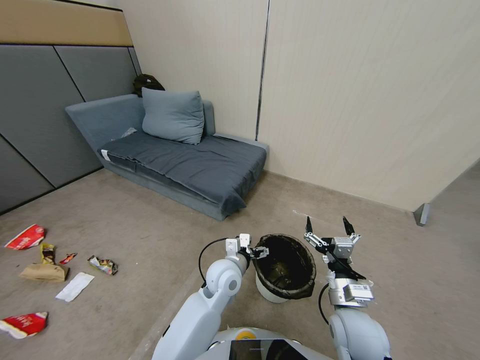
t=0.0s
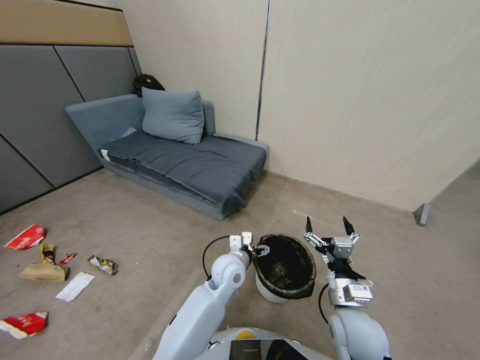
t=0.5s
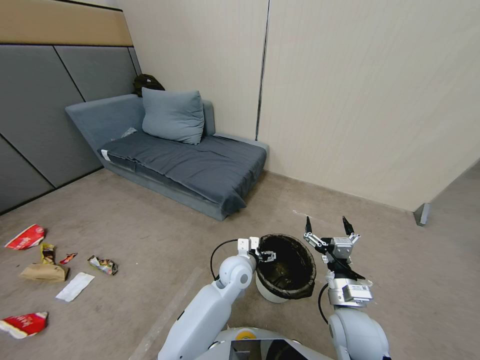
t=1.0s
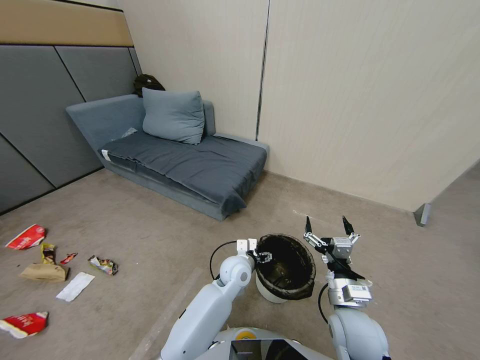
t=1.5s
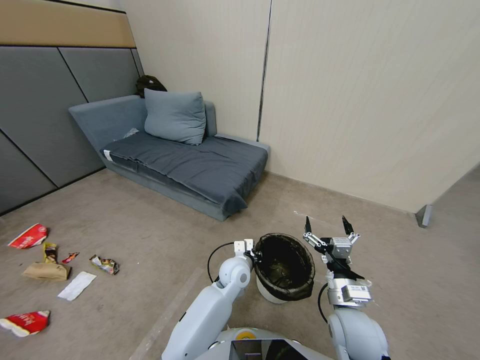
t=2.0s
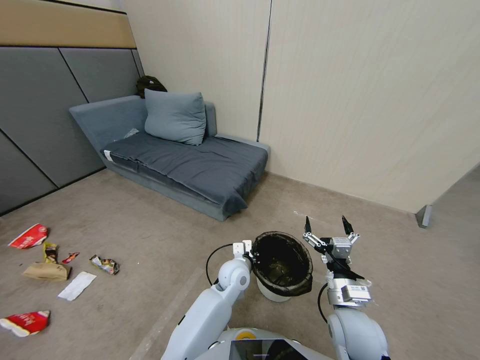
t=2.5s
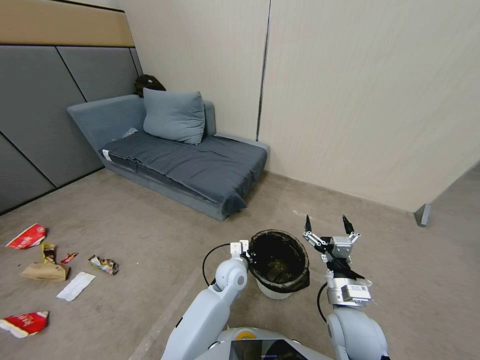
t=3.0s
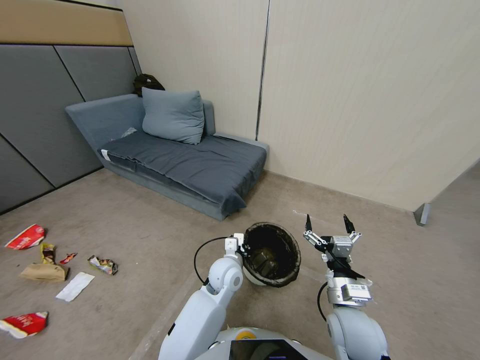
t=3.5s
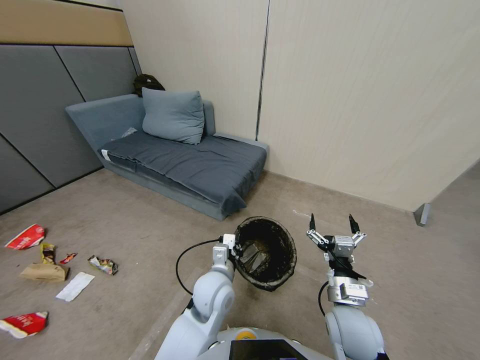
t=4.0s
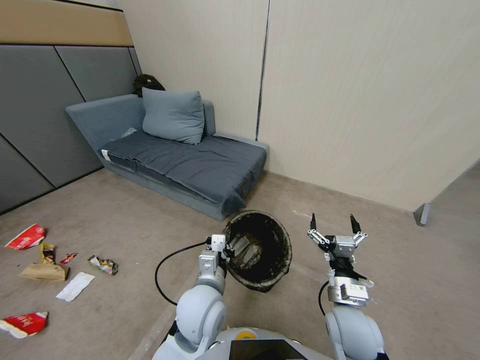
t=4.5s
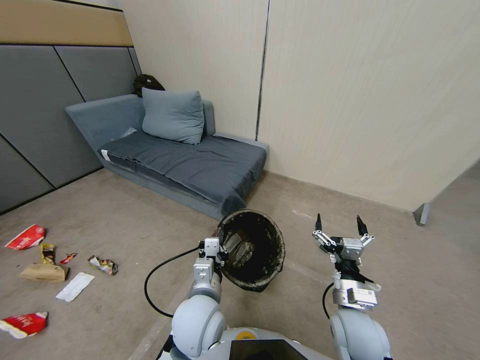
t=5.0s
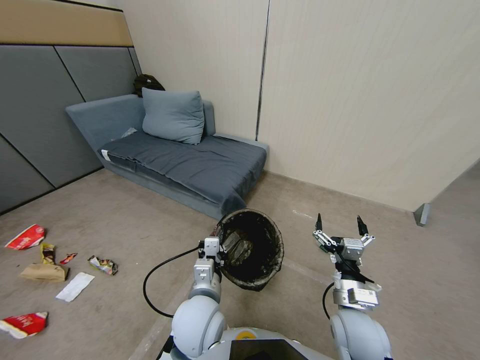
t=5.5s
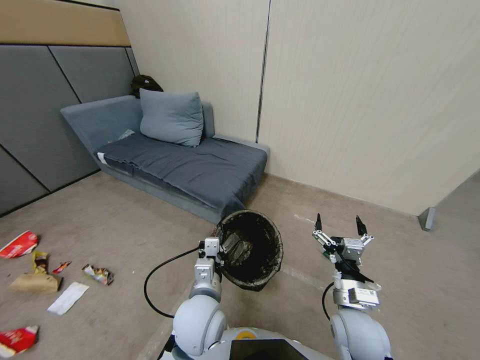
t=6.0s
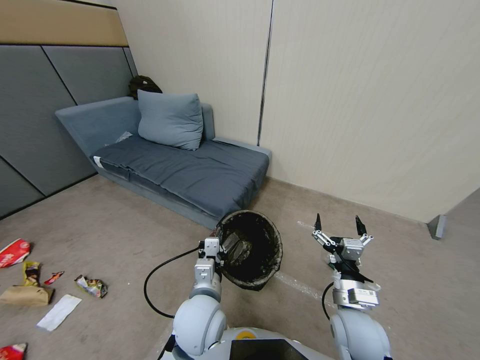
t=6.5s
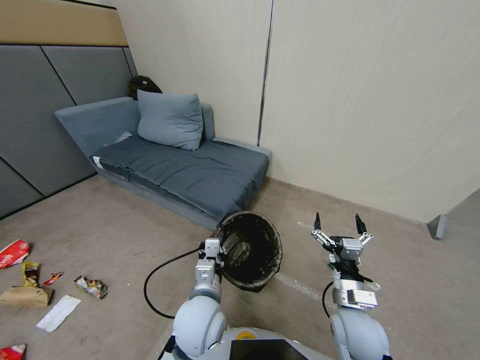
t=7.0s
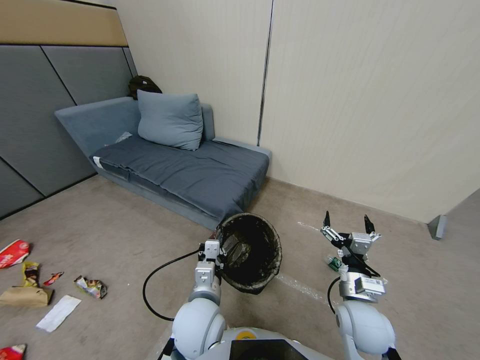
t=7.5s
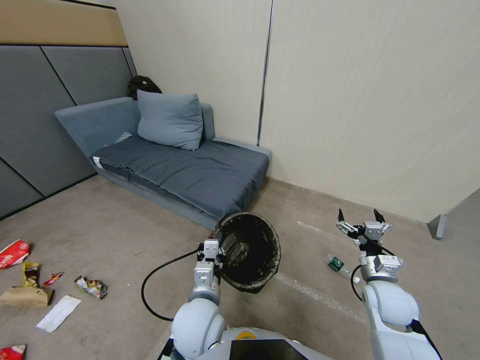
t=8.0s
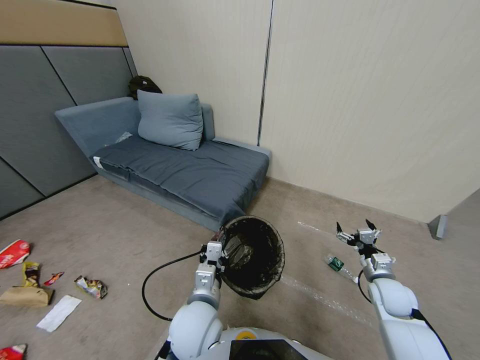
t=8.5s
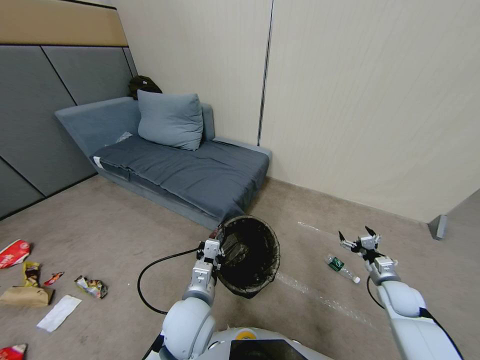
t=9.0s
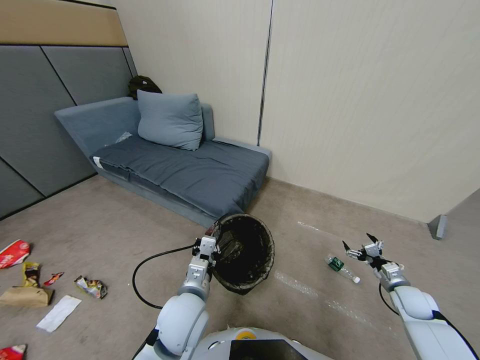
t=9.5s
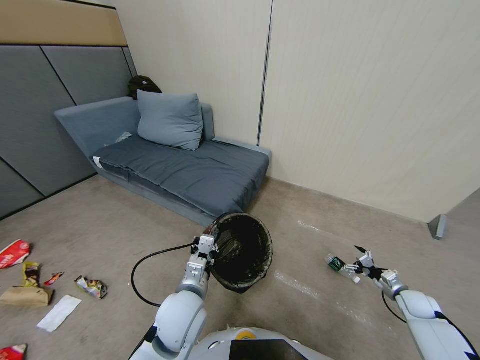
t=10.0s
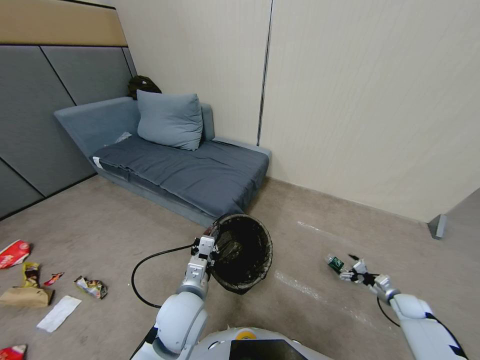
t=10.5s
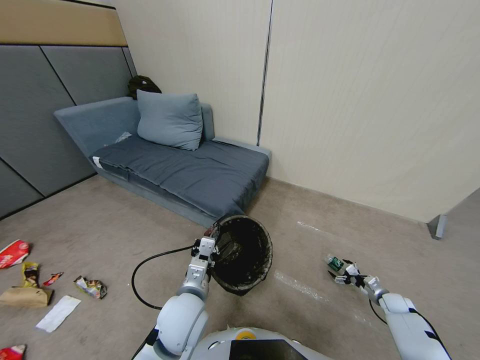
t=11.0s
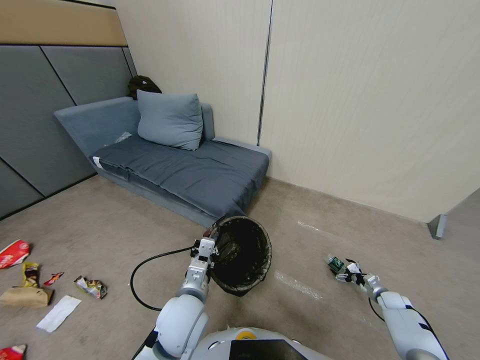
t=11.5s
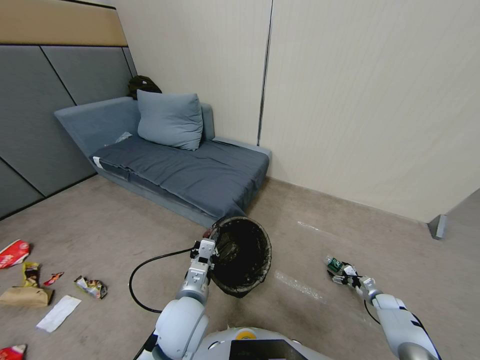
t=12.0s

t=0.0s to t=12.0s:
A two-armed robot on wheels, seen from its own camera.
Task of the whole recording: Pick up the trash bin, then pick up the garbage from the floor and place it into the trash bin.
t=0.0s to t=2.0s: The left gripper is displaced downward by about 5 cm, and closes.
t=2.0s to t=4.0s: The left gripper goes roughly 10 cm upward, backward and to the left.
t=4.0s to t=6.0s: The left gripper shifts about 5 cm backward.
t=6.0s to t=8.0s: The right gripper travels to the right and forward by about 15 cm.
t=8.0s to t=10.0s: The right gripper heads to the right and downward, covering about 25 cm.
t=10.0s to t=12.0s: The right gripper shifts about 10 cm downward.

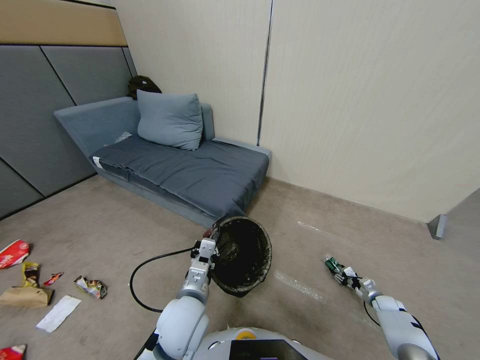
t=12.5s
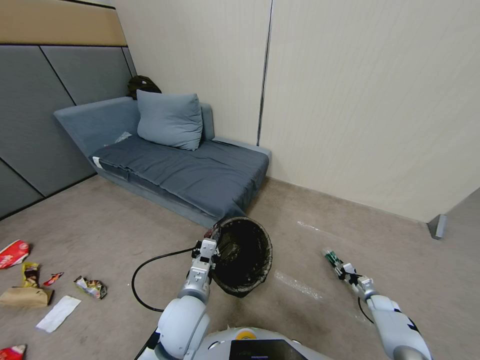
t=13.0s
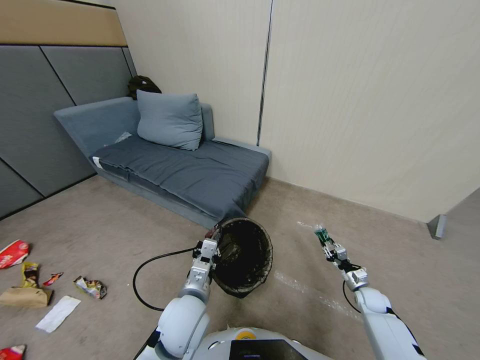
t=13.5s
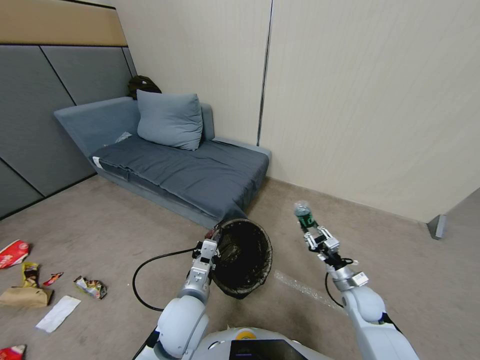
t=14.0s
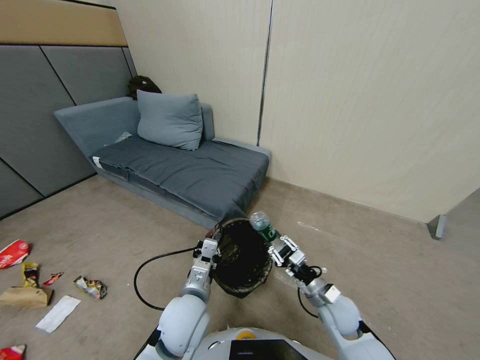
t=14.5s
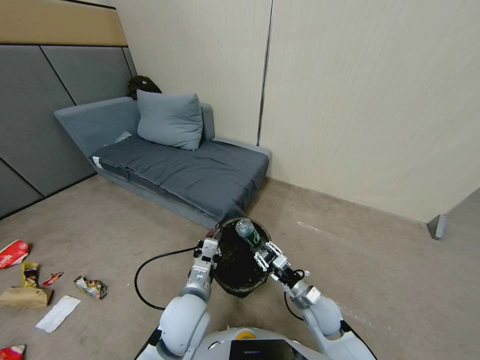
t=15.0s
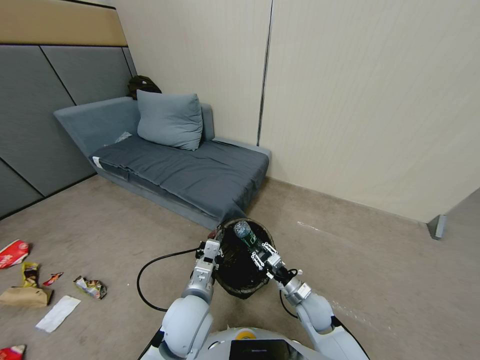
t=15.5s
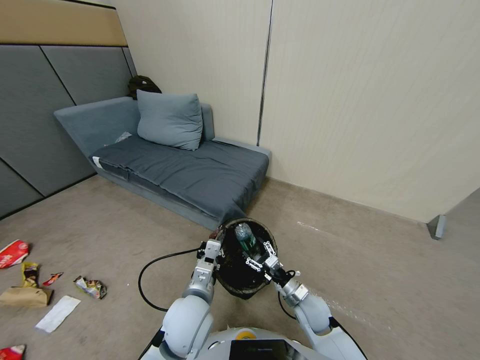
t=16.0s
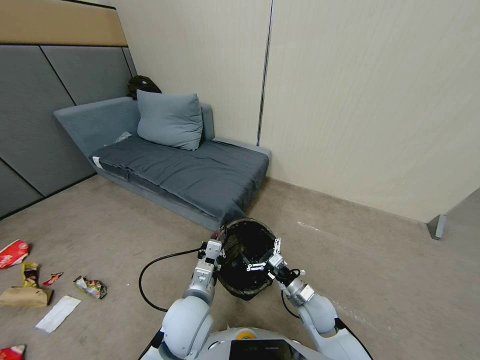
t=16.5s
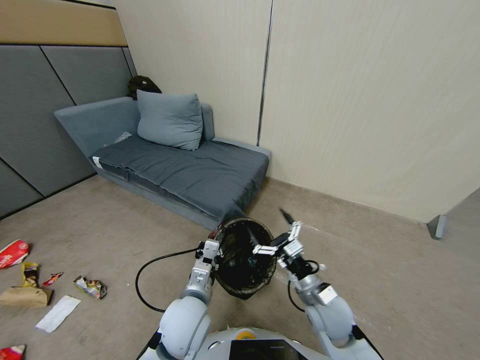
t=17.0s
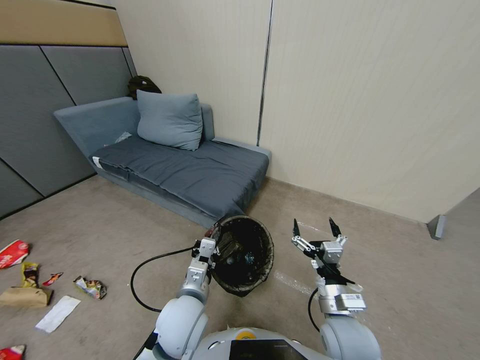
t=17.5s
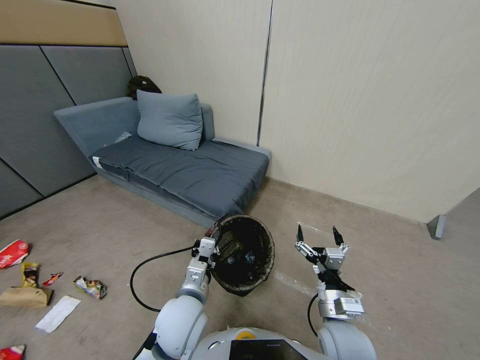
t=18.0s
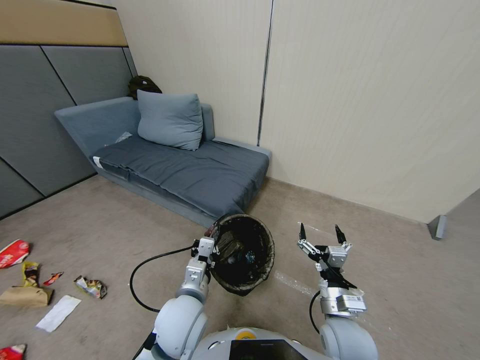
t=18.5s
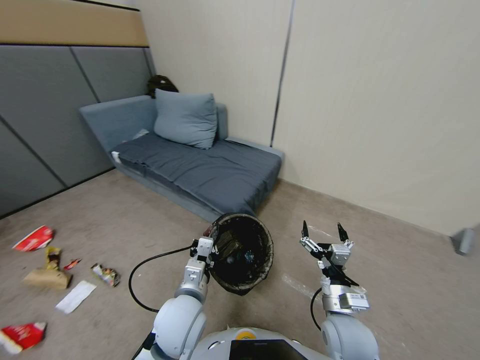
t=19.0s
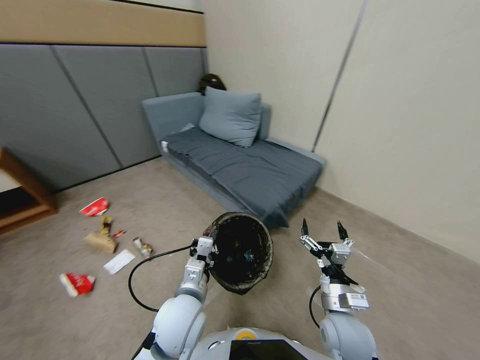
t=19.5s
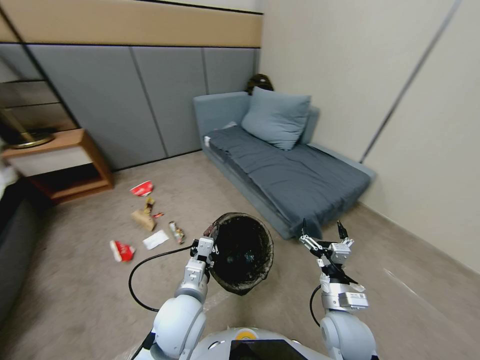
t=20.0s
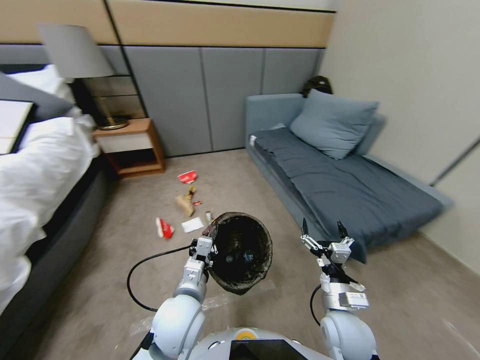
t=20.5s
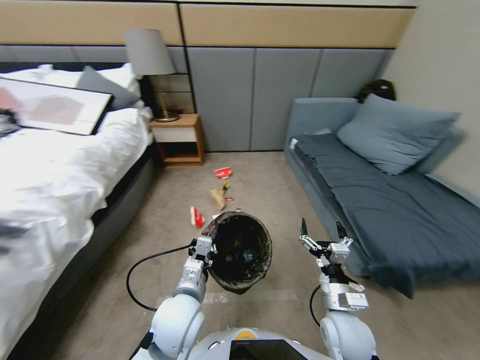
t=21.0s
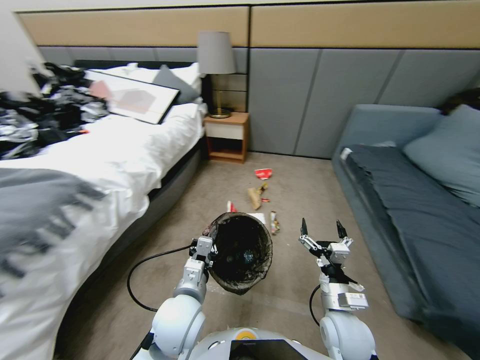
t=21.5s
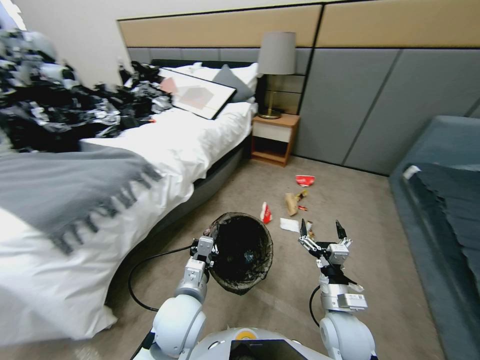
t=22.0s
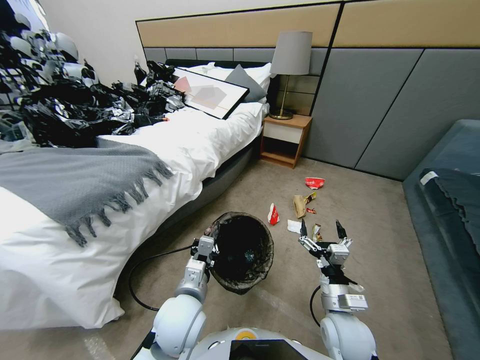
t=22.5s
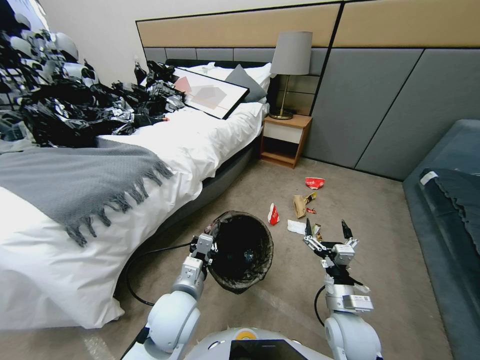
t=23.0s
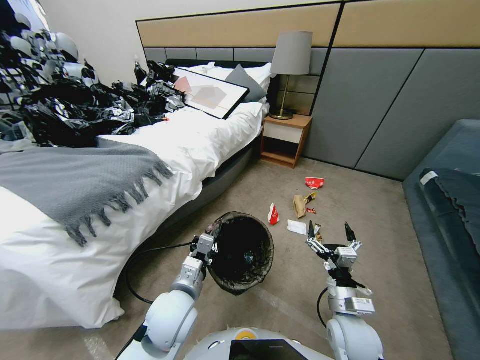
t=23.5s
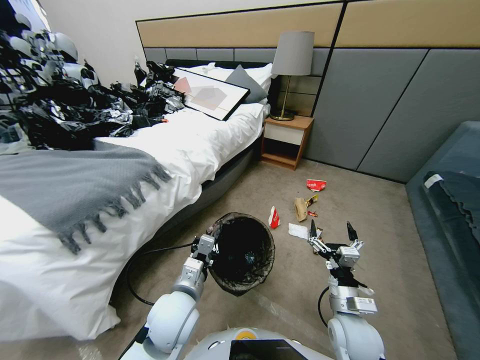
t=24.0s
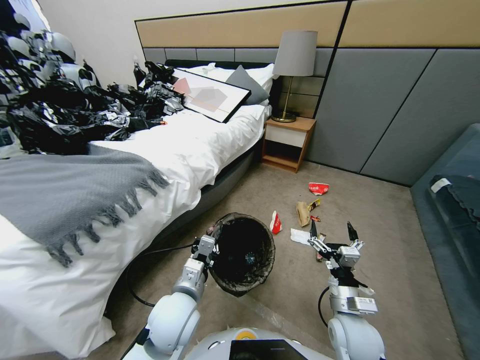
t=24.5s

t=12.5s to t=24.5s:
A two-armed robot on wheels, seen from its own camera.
Task of the whole recording: Pick up the trash bin, then pick up the garbage from the floor and place it into the trash bin.
t=12.5s to t=14.5s: The right gripper travels to the left and upward by about 40 cm.
t=14.5s to t=16.5s: The right gripper opens up.
t=16.5s to t=18.5s: The right gripper moves upward and backward, roughly 10 cm.

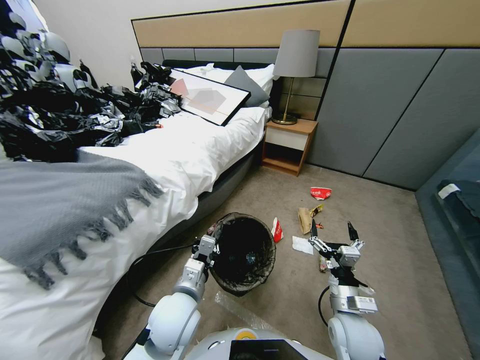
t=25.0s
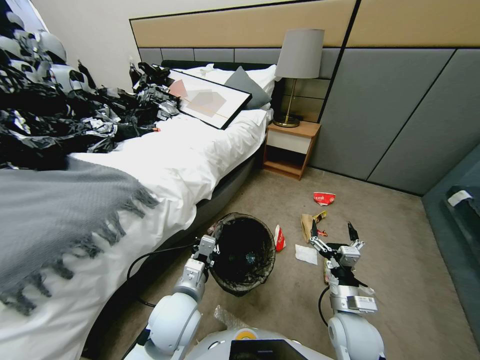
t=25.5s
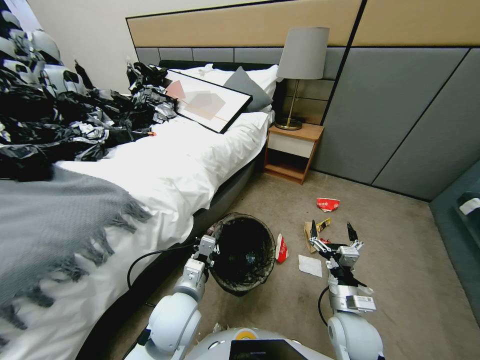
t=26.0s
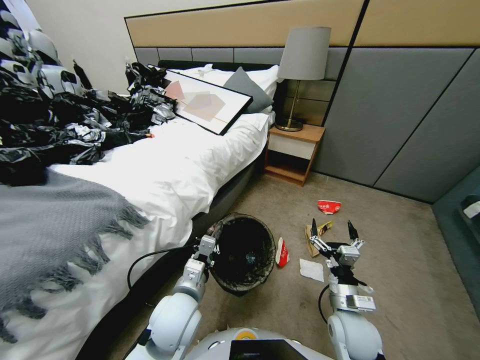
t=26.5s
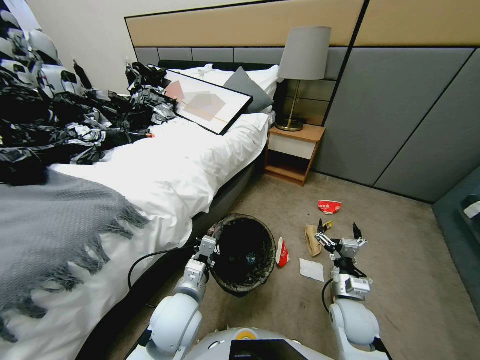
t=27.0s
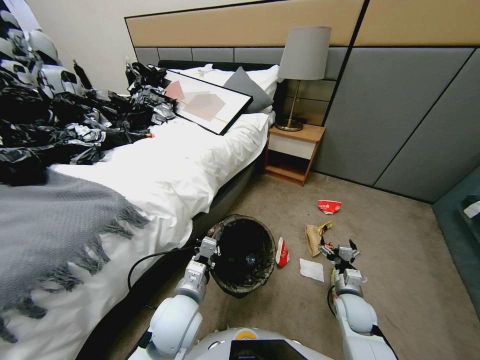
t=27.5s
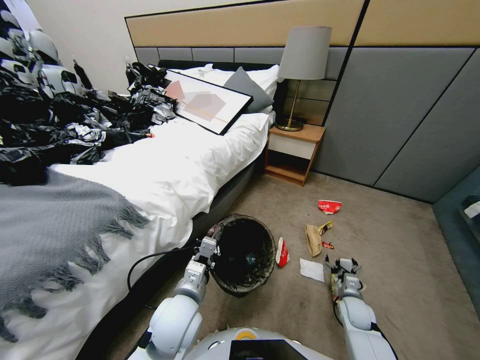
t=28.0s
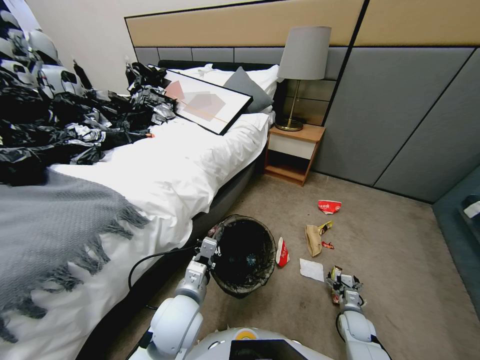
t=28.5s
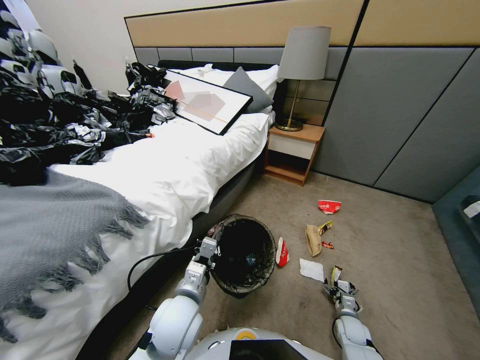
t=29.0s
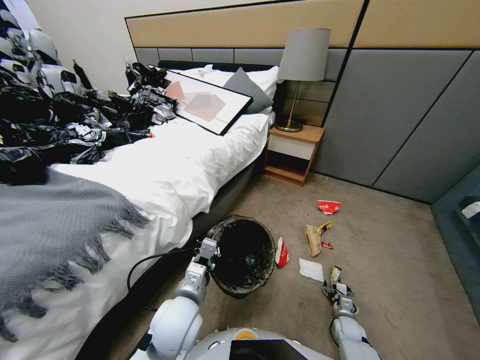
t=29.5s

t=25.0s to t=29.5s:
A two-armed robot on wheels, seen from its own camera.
Task of the whole recording: Pick up the trash bin, then pick up the garbage from the floor and place it into the trash bin.
t=25.0s to t=27.0s: The right gripper changes place by about 5 cm.
t=27.0s to t=29.5s: The right gripper goes roughly 30 cm downward and to the right.
